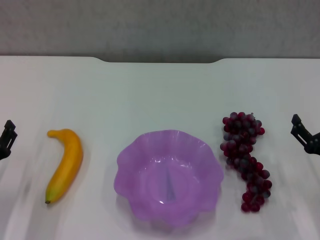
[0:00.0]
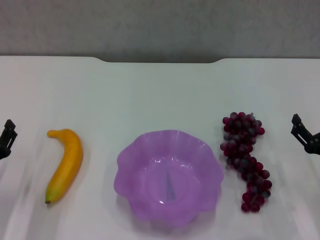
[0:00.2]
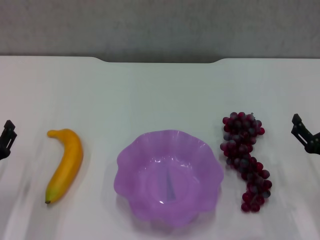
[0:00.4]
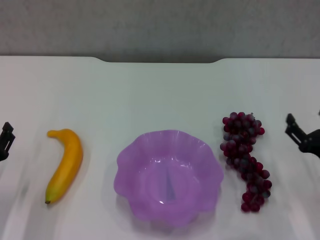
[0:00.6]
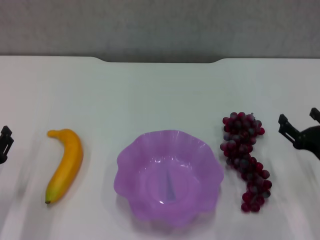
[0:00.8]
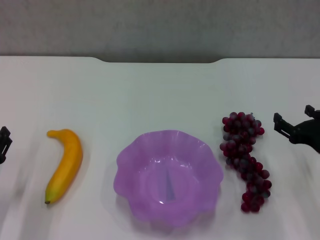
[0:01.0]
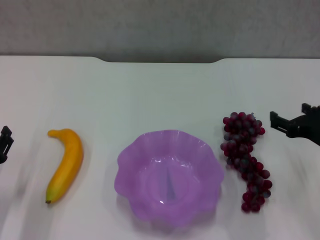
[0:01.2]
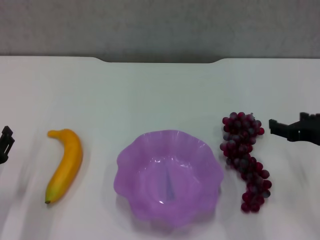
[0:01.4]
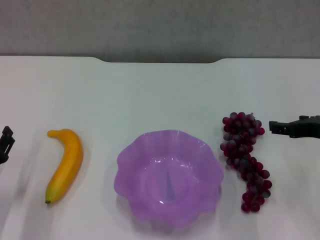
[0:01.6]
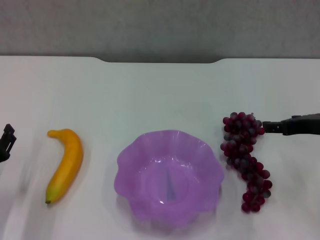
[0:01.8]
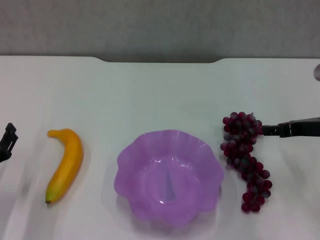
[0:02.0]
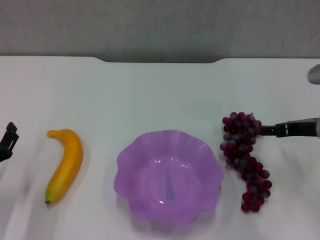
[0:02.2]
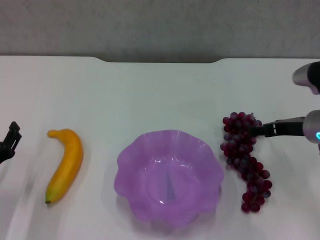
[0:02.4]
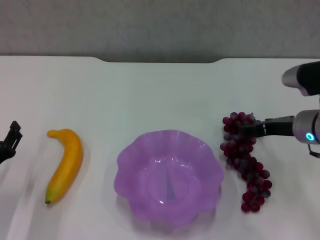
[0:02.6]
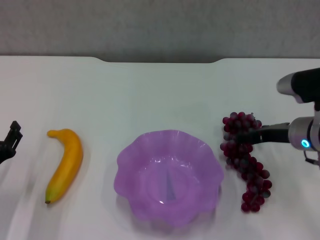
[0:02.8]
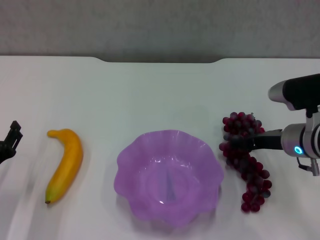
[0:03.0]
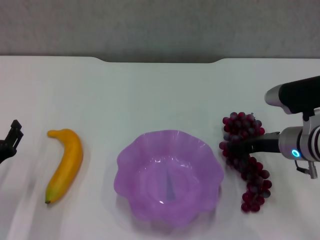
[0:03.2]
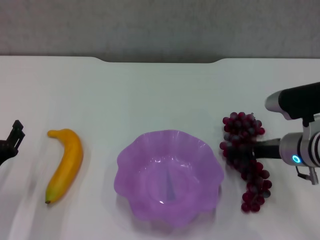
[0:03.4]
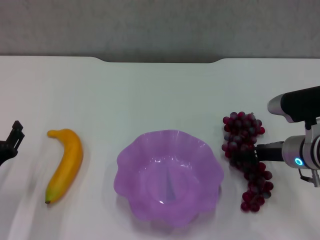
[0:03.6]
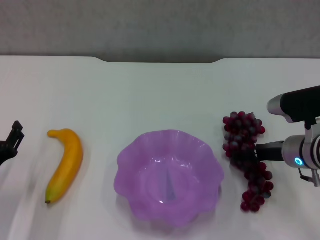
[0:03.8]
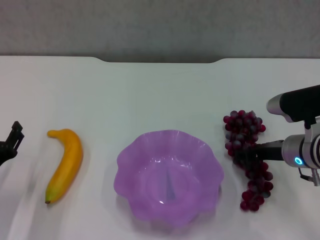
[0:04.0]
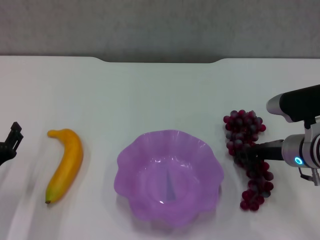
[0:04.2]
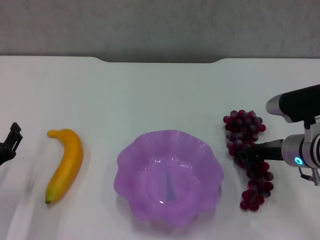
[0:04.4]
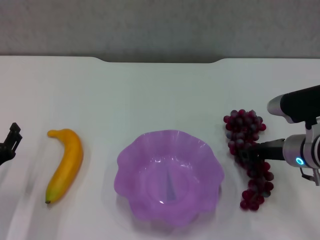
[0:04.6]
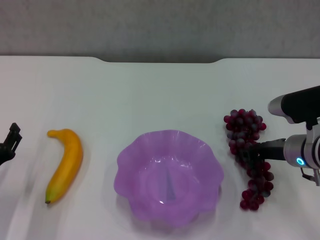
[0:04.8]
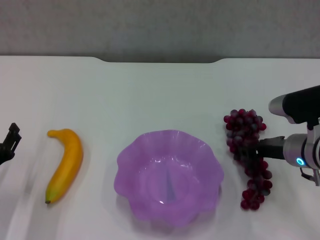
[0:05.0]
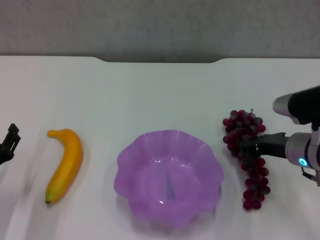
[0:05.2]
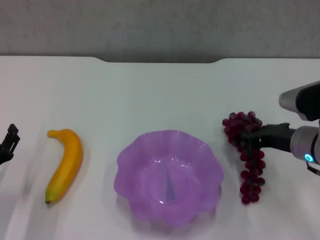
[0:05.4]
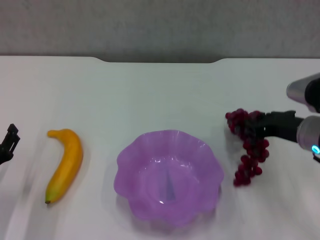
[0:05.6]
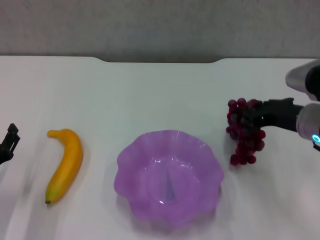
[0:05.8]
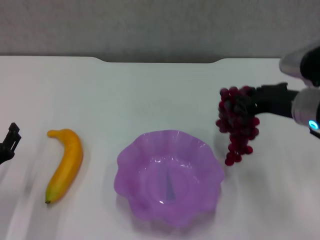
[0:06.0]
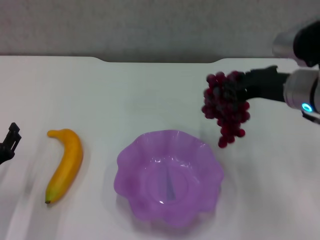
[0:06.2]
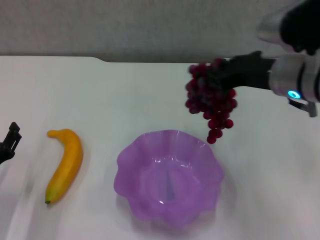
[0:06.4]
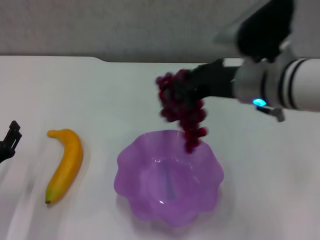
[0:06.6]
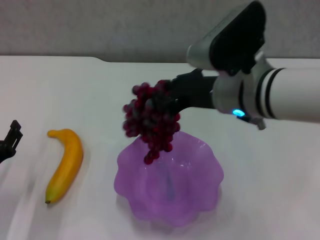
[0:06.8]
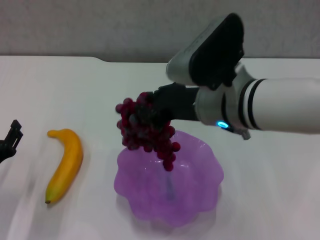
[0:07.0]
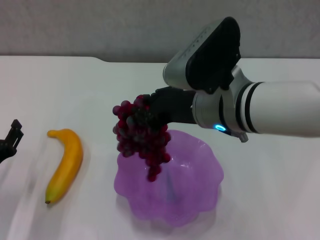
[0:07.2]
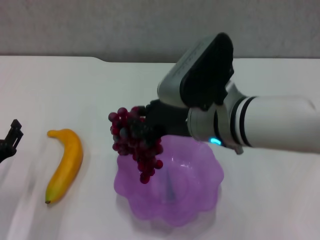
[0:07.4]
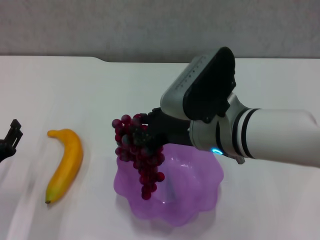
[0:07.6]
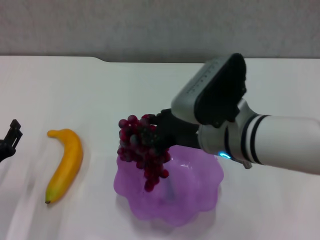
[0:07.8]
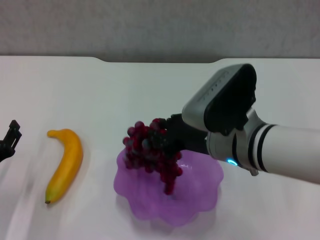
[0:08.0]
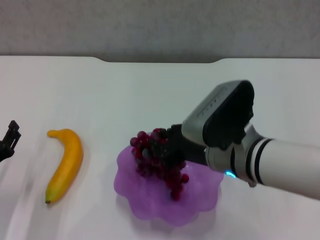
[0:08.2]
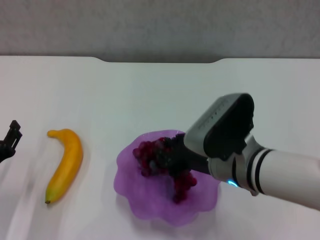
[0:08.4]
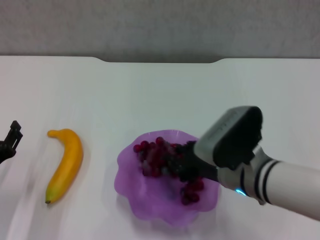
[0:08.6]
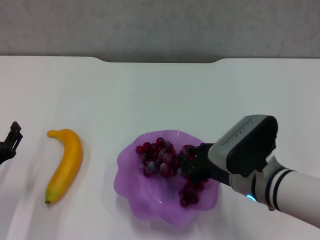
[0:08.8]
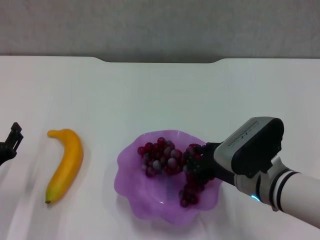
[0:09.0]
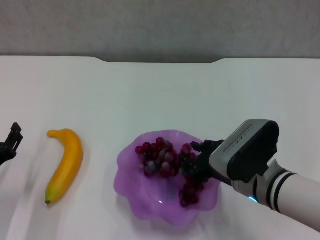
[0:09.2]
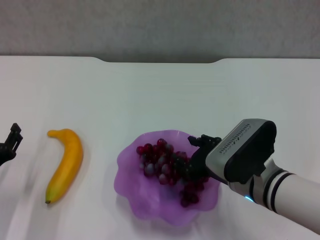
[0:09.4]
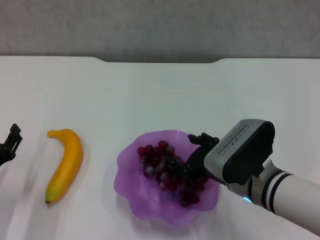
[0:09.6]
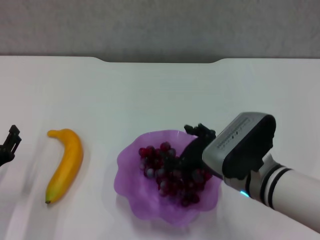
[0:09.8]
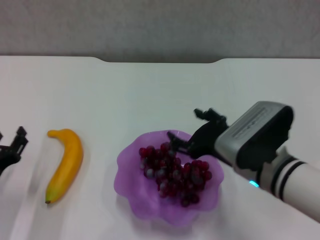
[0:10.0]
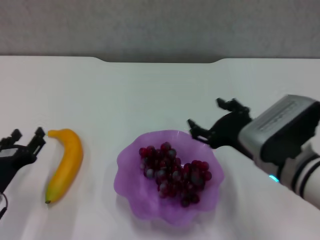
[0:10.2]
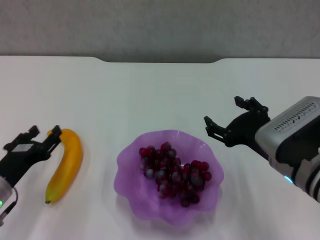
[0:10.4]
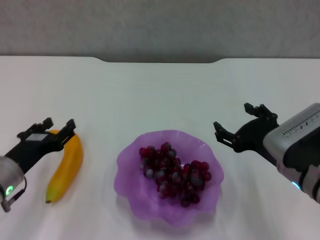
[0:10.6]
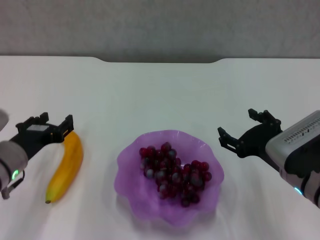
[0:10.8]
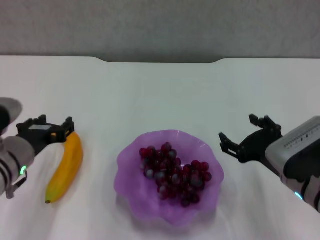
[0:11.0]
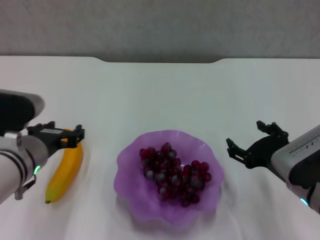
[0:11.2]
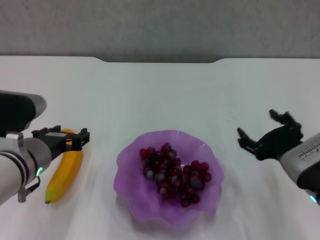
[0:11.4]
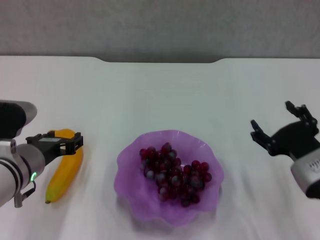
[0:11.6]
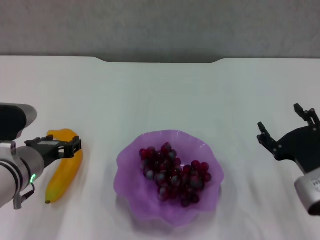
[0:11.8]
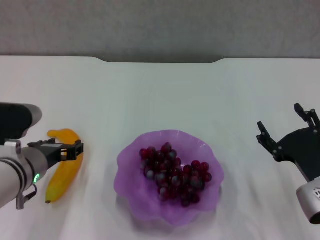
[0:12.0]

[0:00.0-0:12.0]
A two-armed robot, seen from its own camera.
Step, 0:00.0 to 0:04.8: Grasp the grape with right gripper.
Step, 0:05.0 to 0:10.0: Place the grape in the purple plate with right gripper.
0:00.0 to 0:01.6: The right gripper heads upward and forward, covering approximately 15 cm.
0:01.6 to 0:03.0: The right gripper moves downward and forward, some 10 cm.
0:03.0 to 0:04.4: The right gripper closes its fingers.
0:04.4 to 0:06.0: The right gripper is displaced upward by about 10 cm.
0:06.0 to 0:07.6: The right gripper shifts about 15 cm to the left.
0:07.6 to 0:09.0: The right gripper goes about 10 cm downward and to the right.
0:09.0 to 0:10.4: The right gripper moves some 5 cm, and opens up.
0:10.4 to 0:12.0: The left gripper travels to the right and upward by approximately 10 cm, while the right gripper moves to the right and downward, approximately 10 cm.

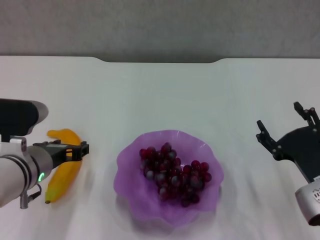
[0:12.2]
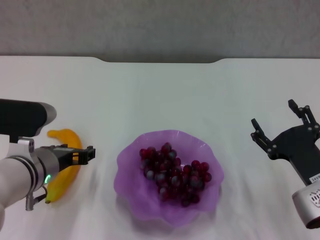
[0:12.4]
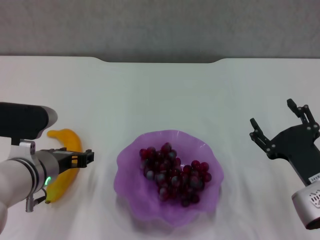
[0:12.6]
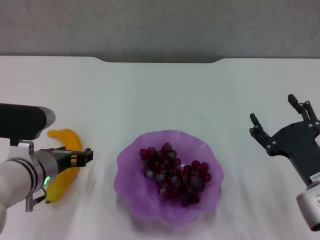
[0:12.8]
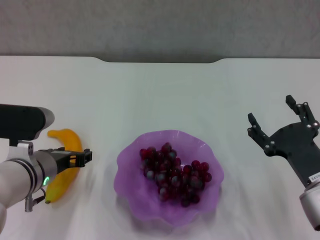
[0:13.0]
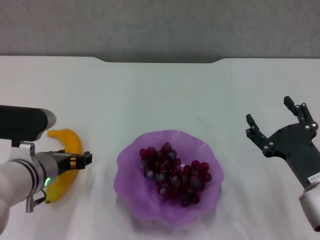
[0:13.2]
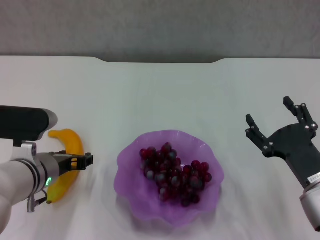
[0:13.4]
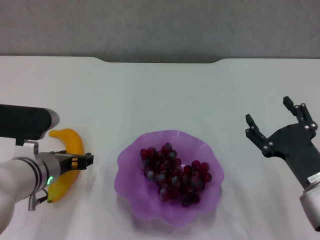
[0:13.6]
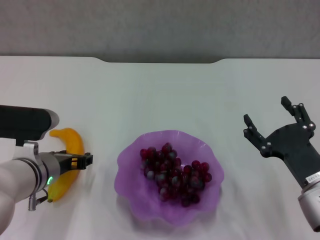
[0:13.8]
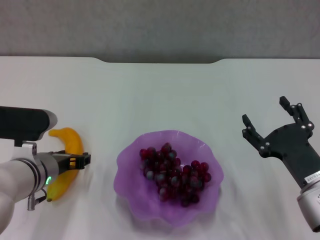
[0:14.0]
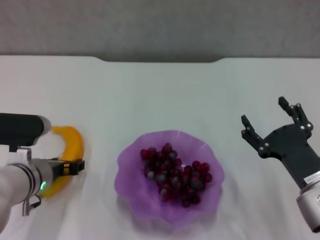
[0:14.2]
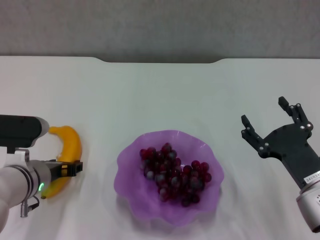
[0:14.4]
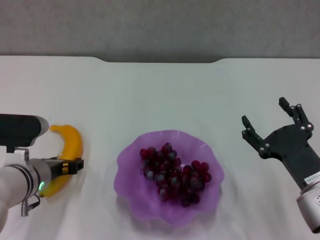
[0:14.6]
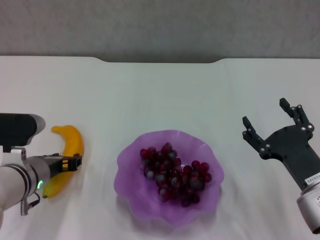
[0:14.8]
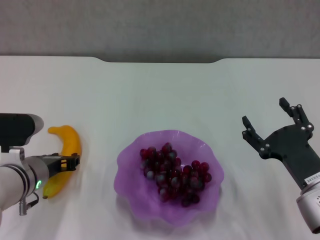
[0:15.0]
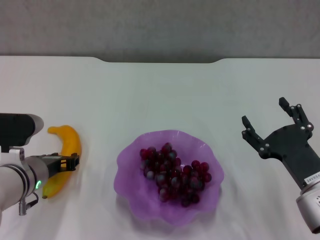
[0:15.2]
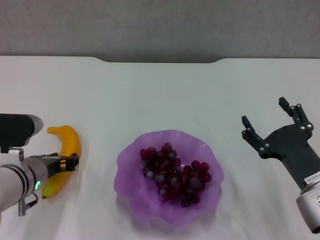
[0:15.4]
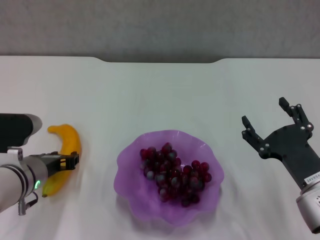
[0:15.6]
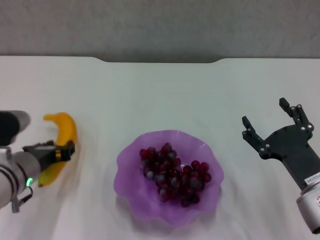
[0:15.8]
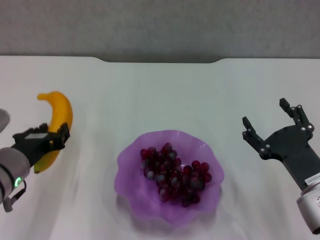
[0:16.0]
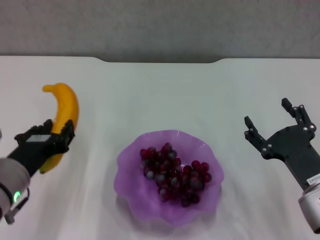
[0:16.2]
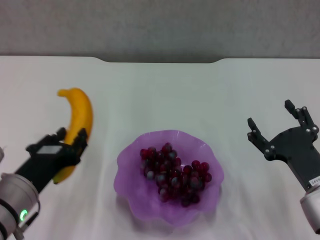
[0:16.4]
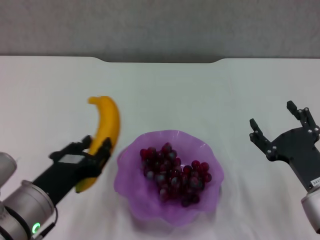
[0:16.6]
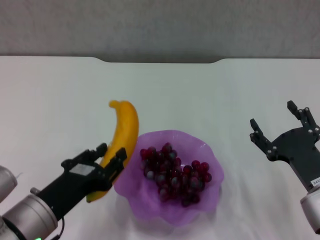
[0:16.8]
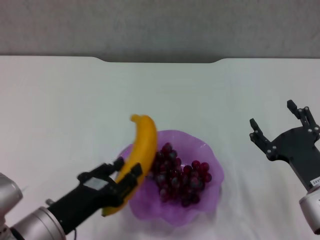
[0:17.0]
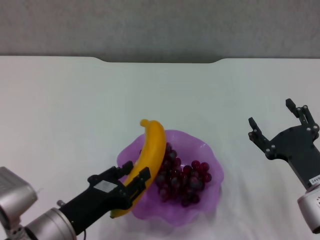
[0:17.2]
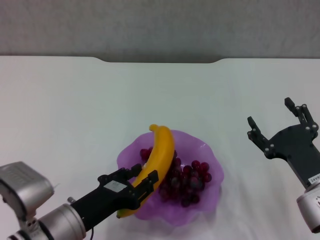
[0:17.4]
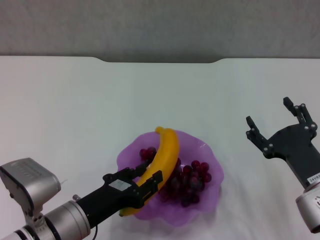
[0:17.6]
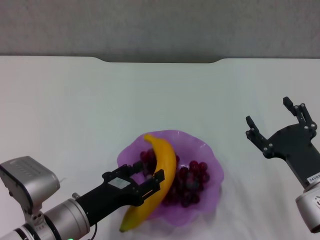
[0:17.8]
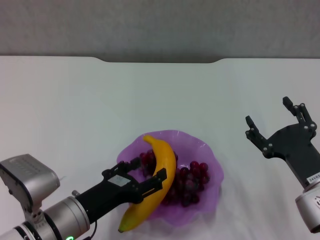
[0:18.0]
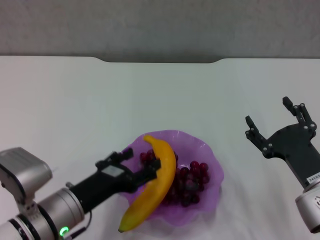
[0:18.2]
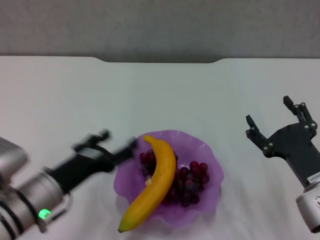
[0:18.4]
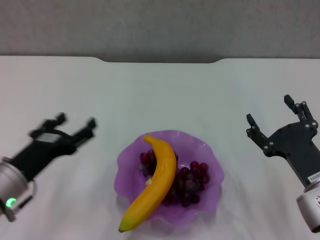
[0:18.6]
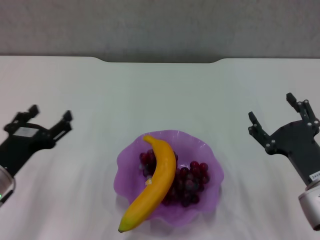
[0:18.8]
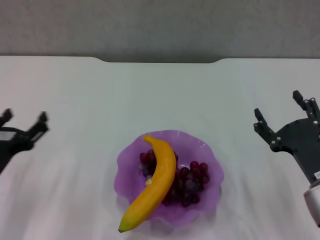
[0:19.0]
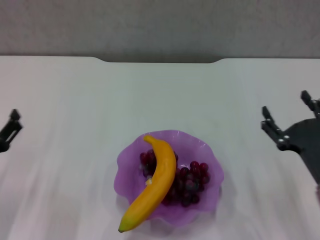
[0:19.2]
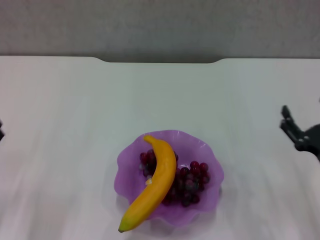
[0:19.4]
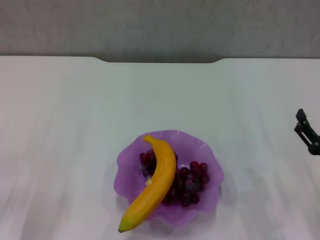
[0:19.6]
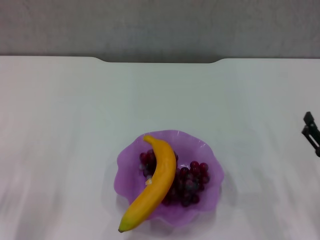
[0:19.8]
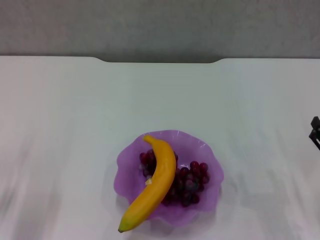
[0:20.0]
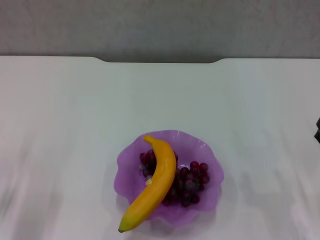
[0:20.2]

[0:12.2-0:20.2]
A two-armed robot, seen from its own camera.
Step, 0:12.2 to 0:15.0: Grasp the banana with left gripper.
Step, 0:15.2 to 0:18.0: Place the banana in the purple plate with left gripper.
0:12.2 to 0:13.8: The grippers move only a little.
0:13.8 to 0:15.4: The left gripper closes its fingers.
0:15.4 to 0:17.0: The left gripper goes some 10 cm backward.
0:17.0 to 0:18.6: The left gripper is displaced forward and to the left by about 10 cm, and opens up.
0:18.6 to 0:20.2: The left gripper goes about 10 cm to the left. The right gripper heads to the right, covering approximately 10 cm.
